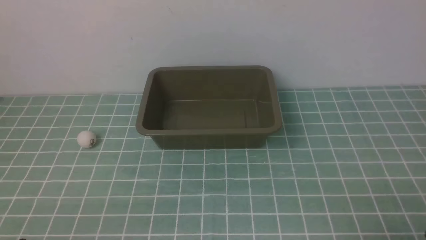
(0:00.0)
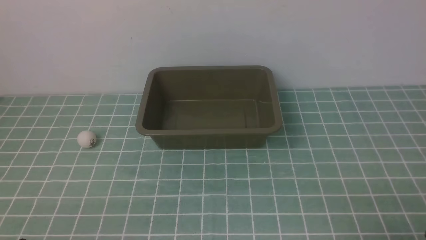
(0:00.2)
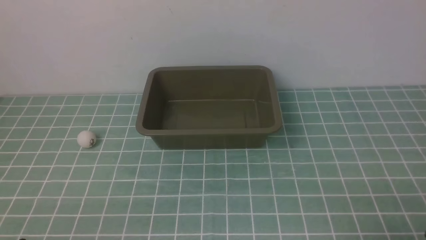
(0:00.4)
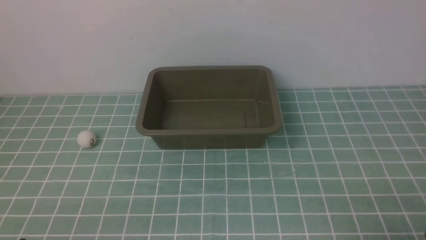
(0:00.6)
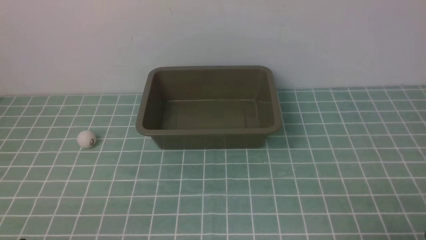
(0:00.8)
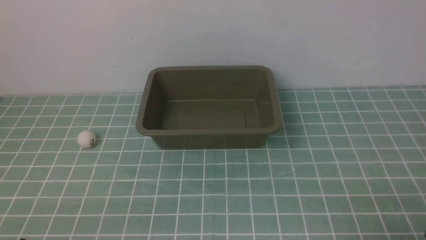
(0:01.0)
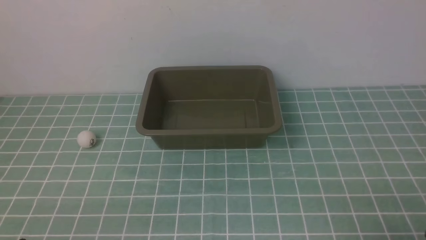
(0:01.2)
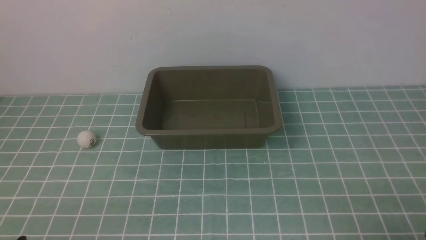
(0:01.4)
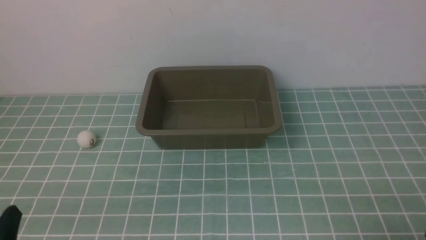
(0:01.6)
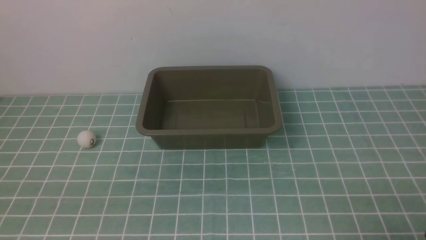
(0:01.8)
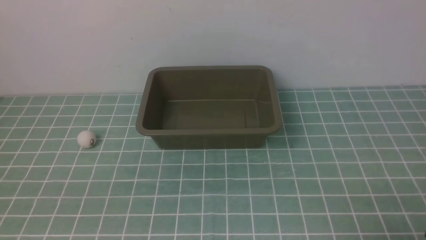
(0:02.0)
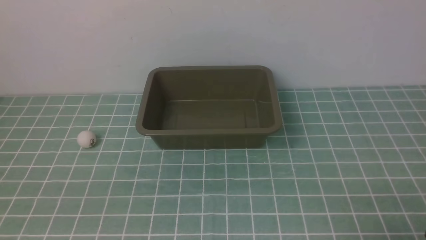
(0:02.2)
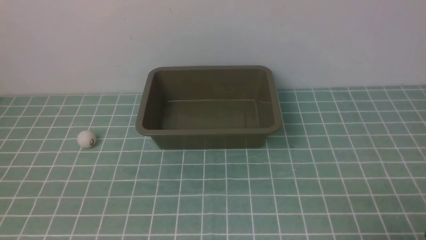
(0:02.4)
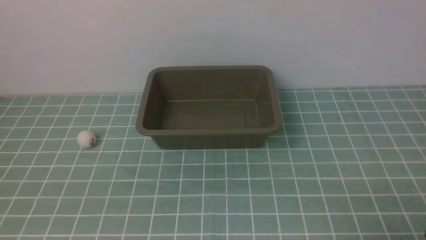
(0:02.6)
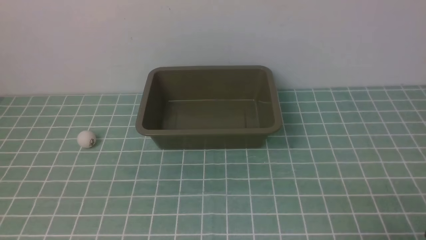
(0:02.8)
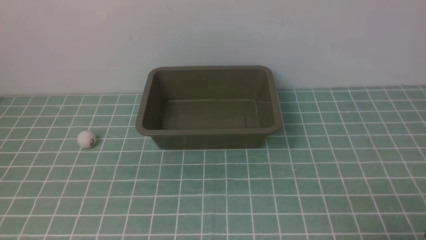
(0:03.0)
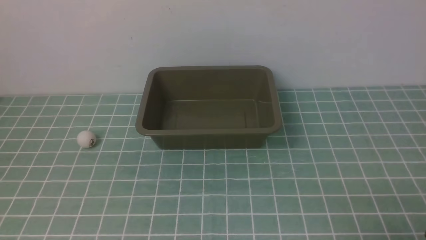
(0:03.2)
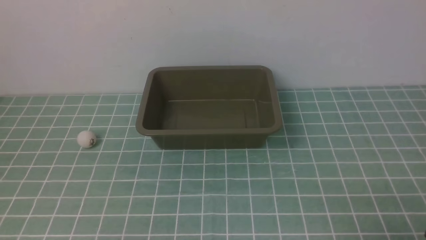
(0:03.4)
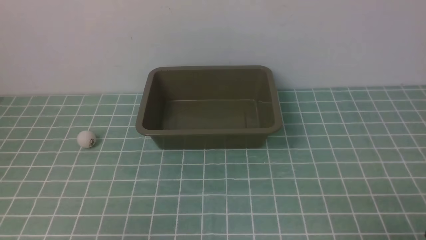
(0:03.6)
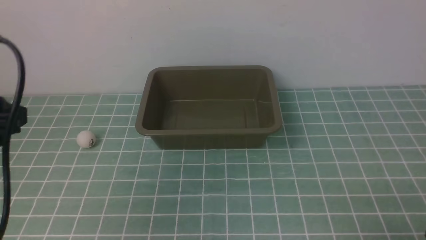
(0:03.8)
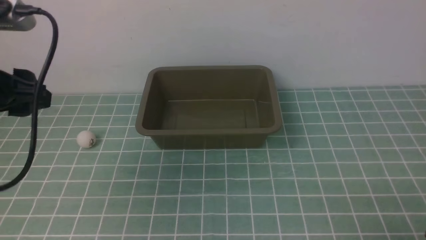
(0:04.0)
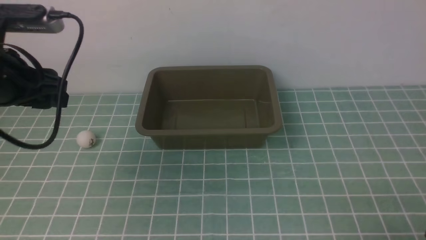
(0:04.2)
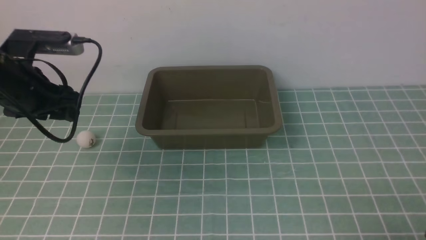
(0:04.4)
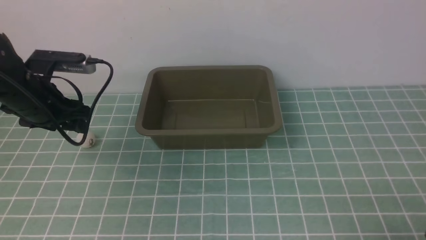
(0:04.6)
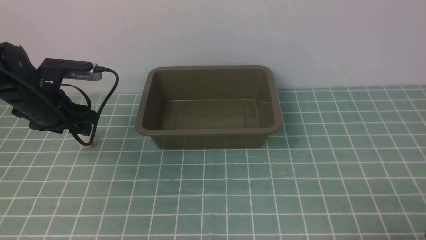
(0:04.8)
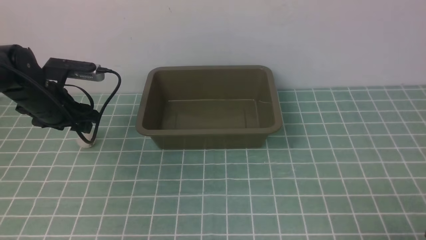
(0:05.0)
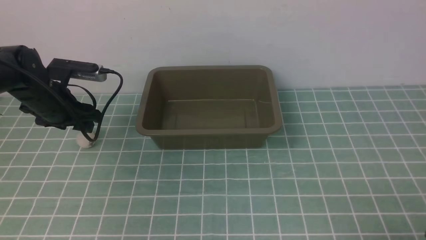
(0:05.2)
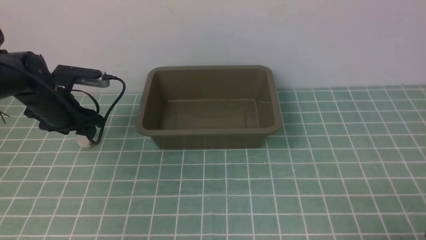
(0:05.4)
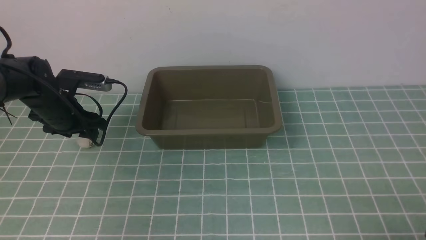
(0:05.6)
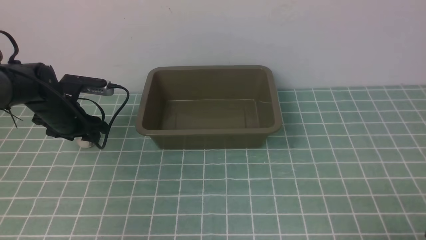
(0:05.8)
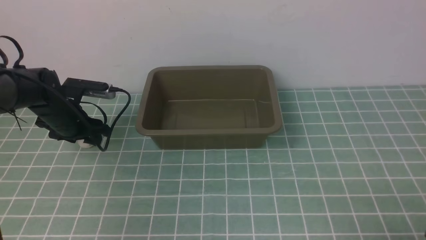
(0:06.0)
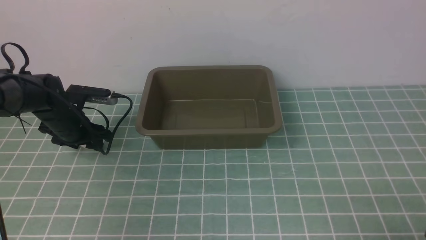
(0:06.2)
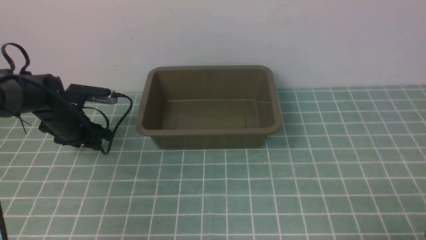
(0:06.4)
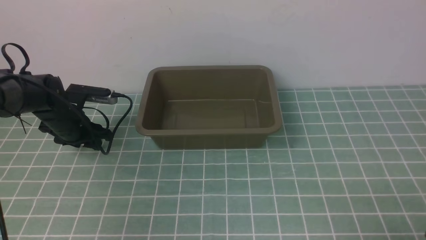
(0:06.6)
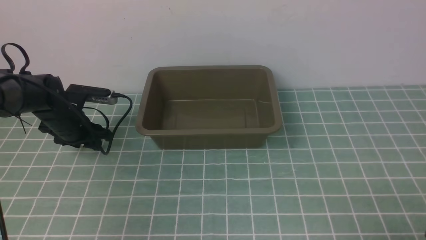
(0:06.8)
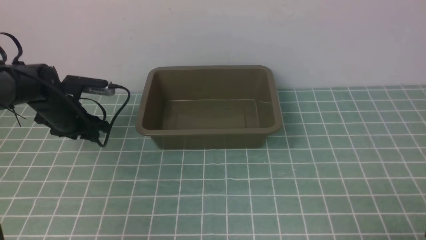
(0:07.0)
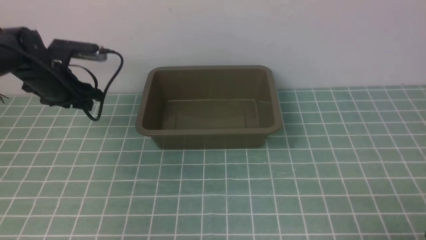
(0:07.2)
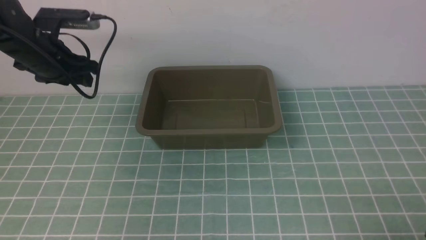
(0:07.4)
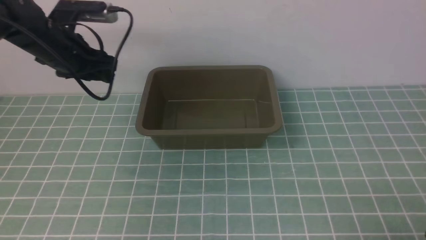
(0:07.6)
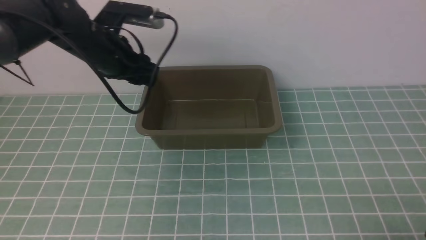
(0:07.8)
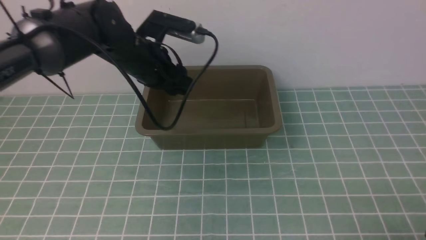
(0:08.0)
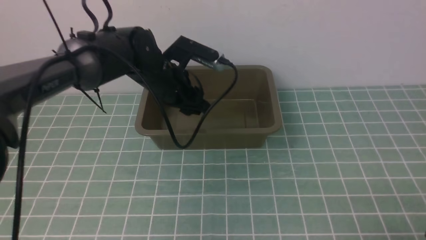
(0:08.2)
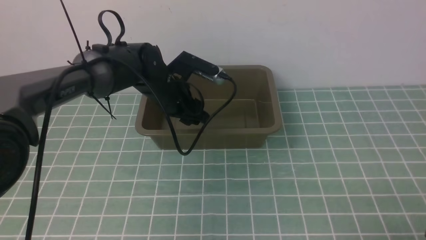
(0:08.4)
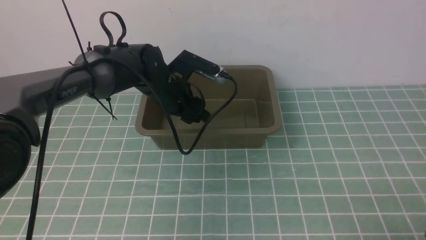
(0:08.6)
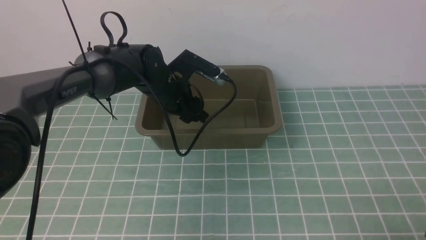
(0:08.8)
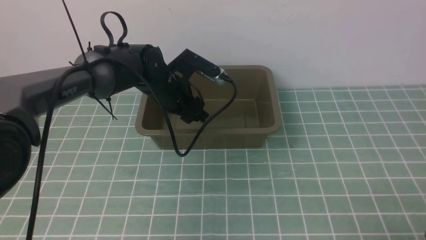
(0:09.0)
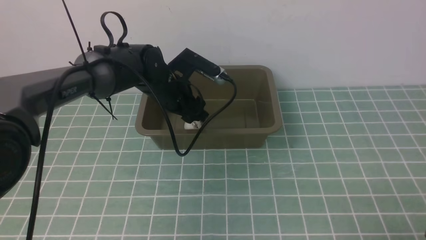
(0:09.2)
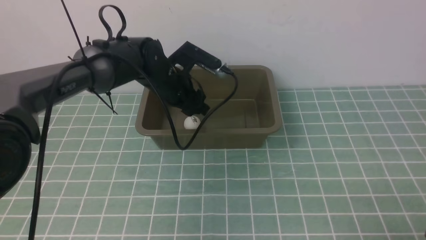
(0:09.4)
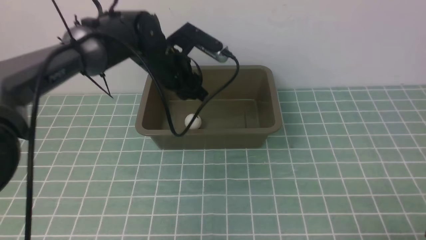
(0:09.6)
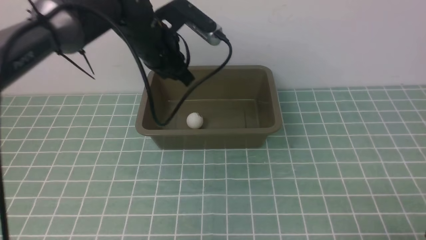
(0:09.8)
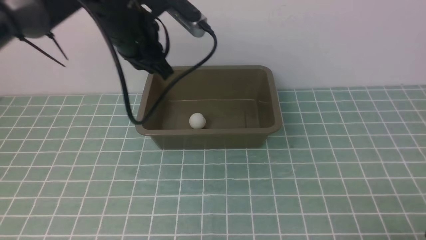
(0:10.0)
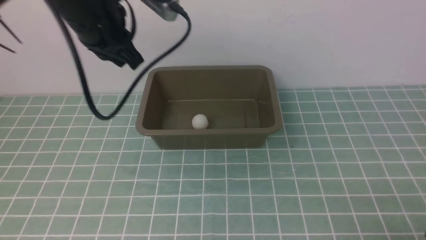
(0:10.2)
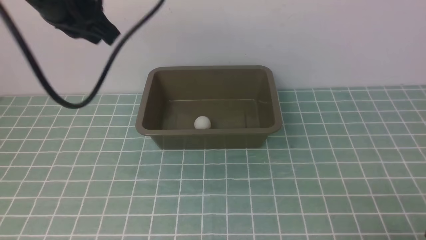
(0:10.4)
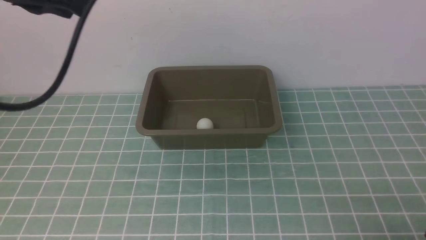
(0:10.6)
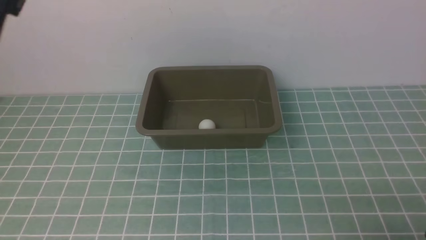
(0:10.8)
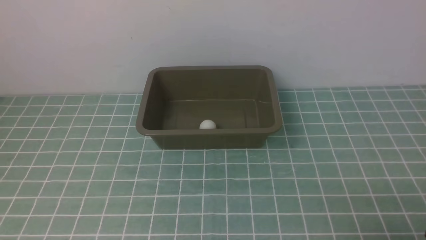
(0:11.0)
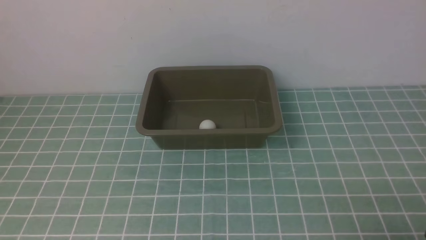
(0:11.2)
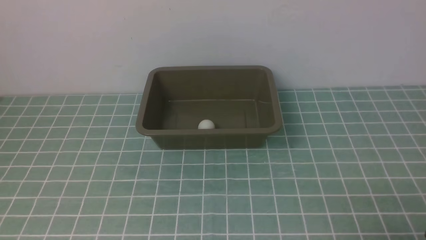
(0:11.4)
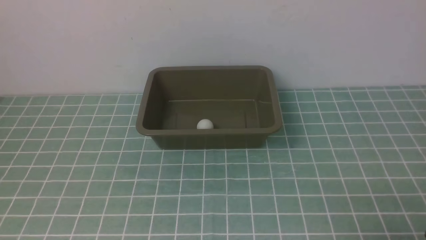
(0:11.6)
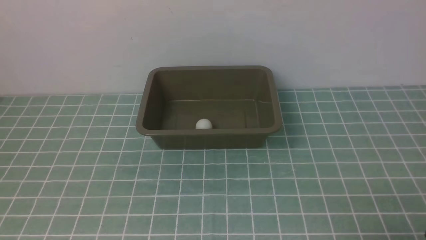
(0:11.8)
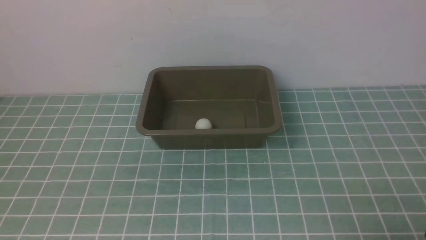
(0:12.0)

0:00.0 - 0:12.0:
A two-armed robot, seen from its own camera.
Step, 0:00.0 - 0:07.2: use the left arm to clamp the table tennis ball closest to it.
Step, 0:07.4 - 0:10.2: use the left arm to put the table tennis ball into the box.
0:03.0 - 0:04.4: The left gripper travels forward by about 30 cm.
0:04.4 - 0:06.0: The left gripper moves downward and forward, approximately 15 cm.
0:06.0 - 0:07.6: The left gripper is displaced to the right and upward by some 20 cm.
0:07.6 - 0:09.0: The left gripper heads downward and to the right, covering approximately 10 cm.
0:09.0 - 0:10.4: The left gripper travels upward, backward and to the left by some 40 cm, and closes up.
0:10.4 - 0:12.0: The left gripper heads downward and backward, covering about 25 cm.

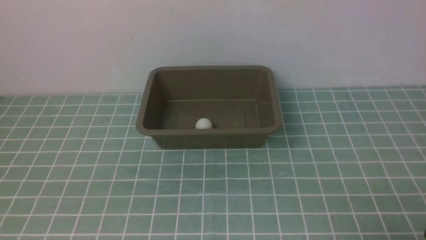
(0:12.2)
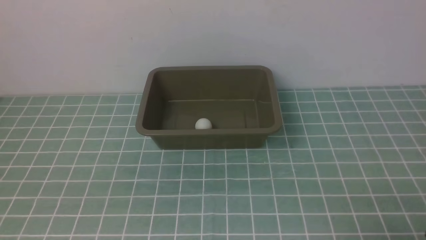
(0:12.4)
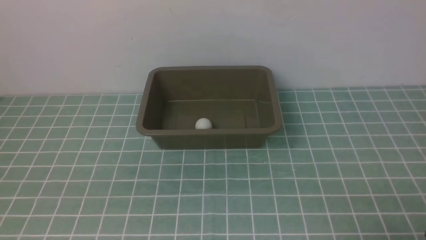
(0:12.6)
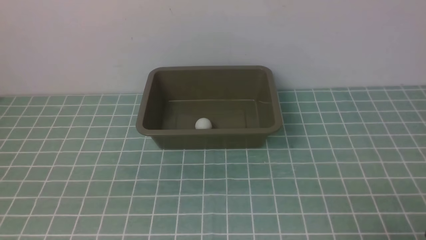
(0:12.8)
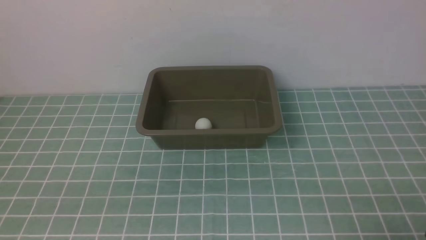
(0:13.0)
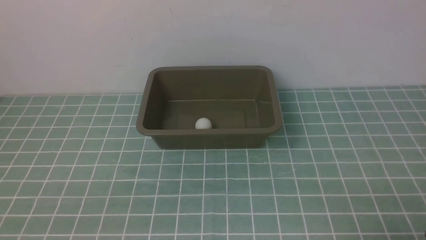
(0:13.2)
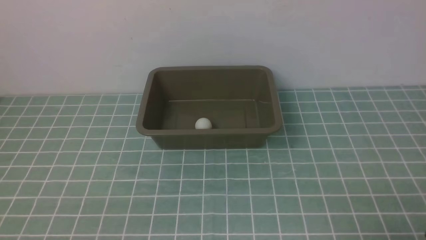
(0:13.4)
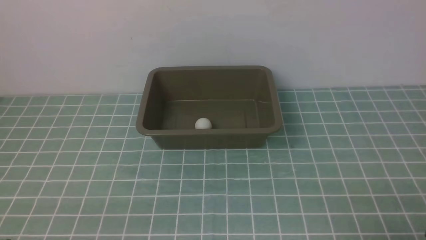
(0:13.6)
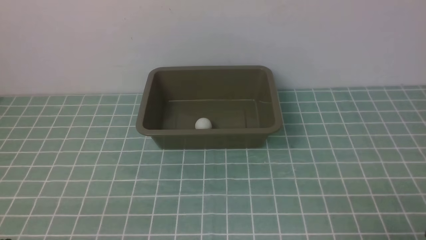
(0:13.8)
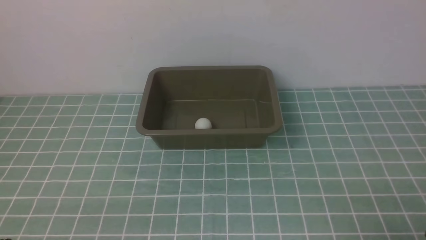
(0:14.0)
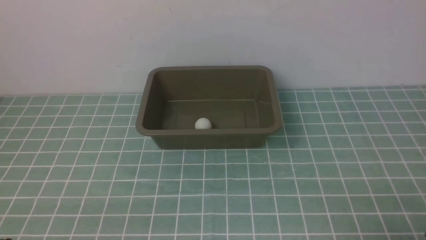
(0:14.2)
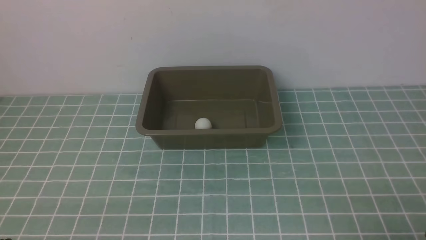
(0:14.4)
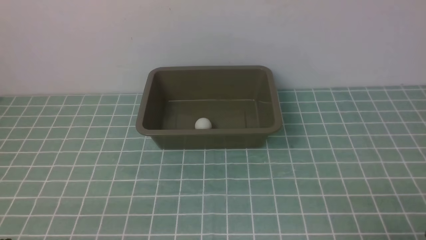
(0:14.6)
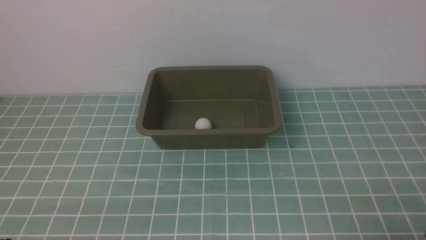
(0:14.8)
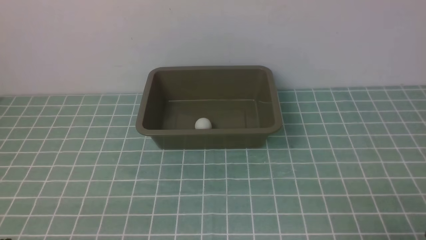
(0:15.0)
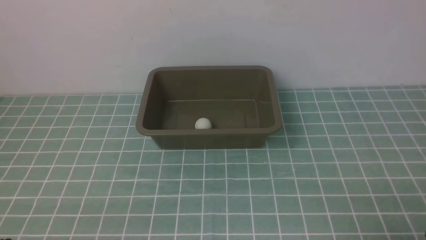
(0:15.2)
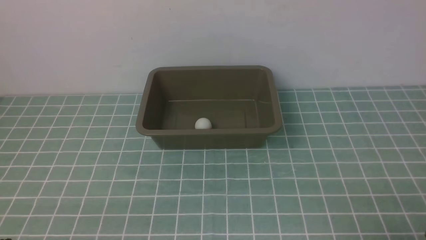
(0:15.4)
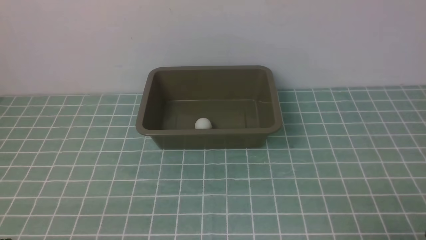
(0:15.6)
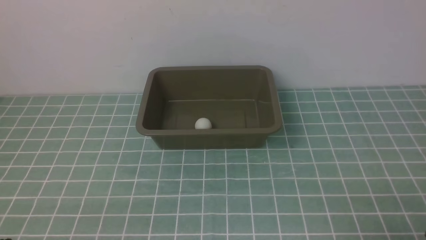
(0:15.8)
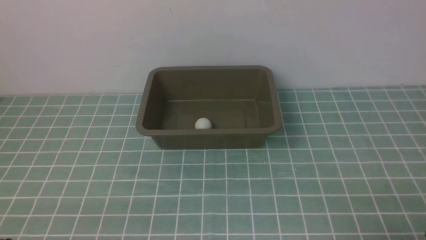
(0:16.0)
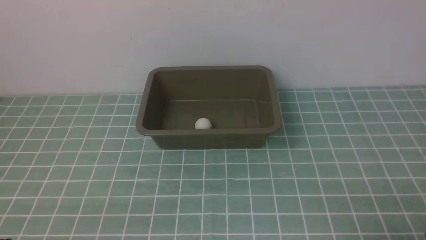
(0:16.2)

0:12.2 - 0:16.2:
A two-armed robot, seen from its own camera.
0:13.6 - 0:16.2: The two grippers keep their place.
